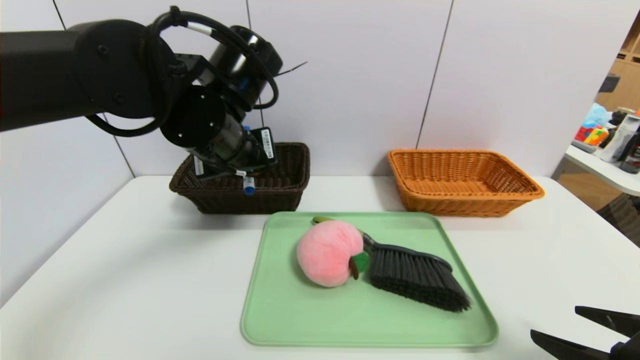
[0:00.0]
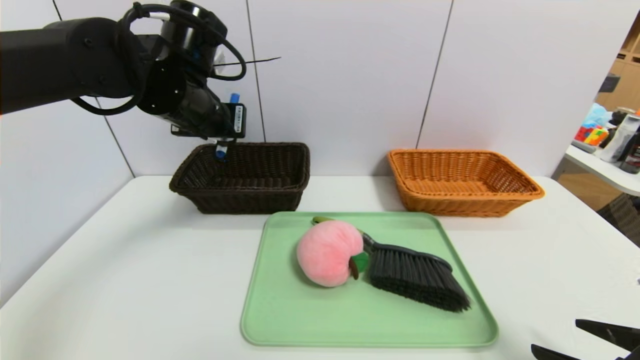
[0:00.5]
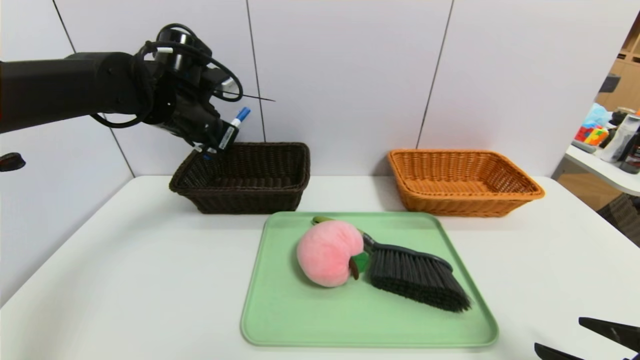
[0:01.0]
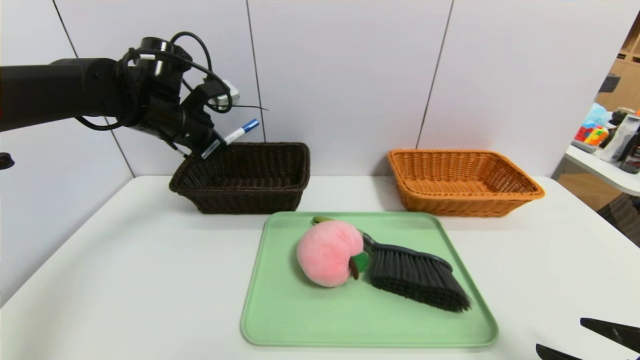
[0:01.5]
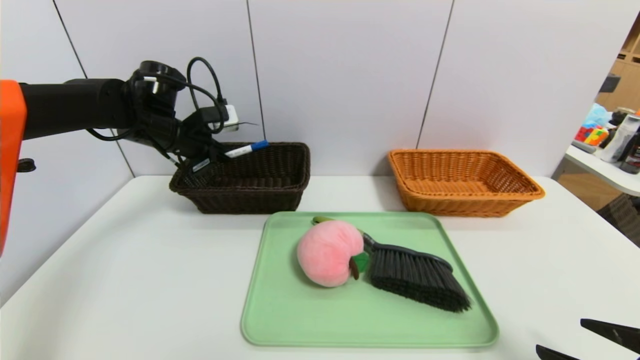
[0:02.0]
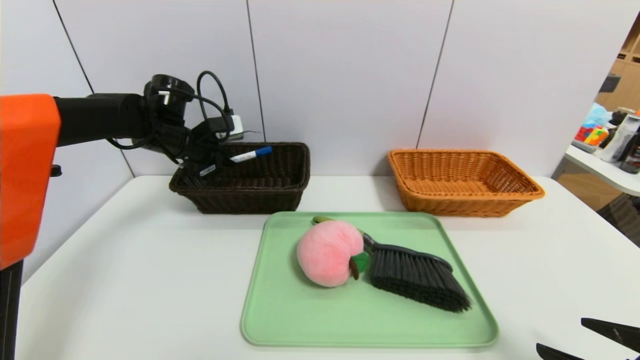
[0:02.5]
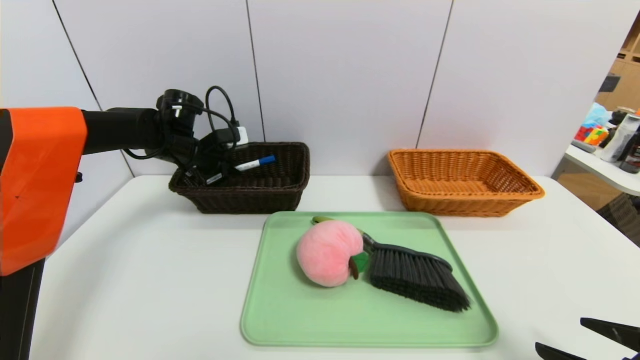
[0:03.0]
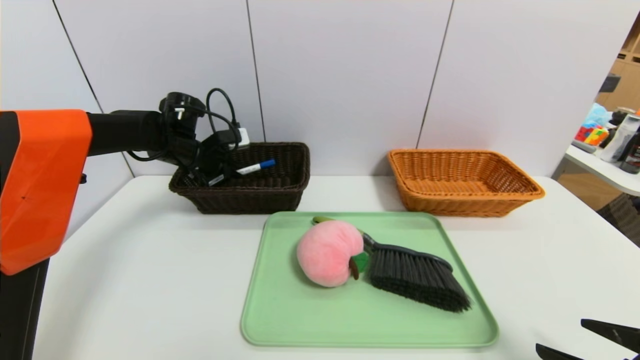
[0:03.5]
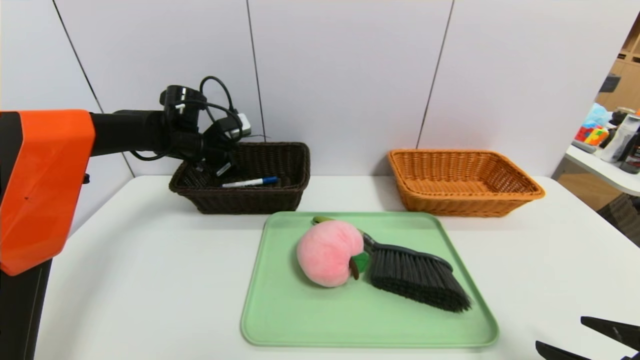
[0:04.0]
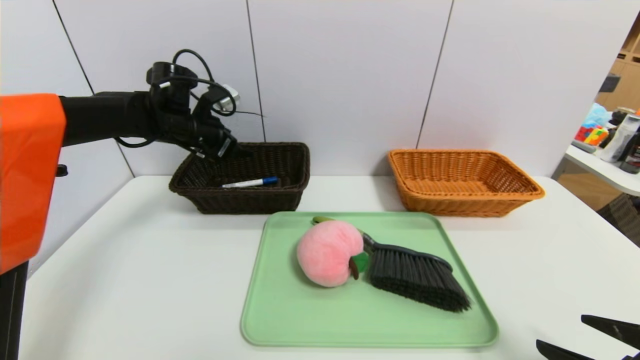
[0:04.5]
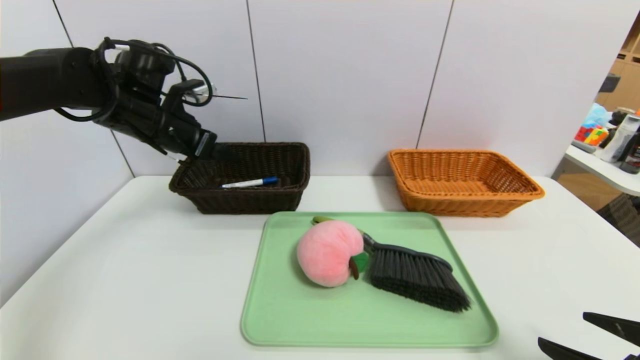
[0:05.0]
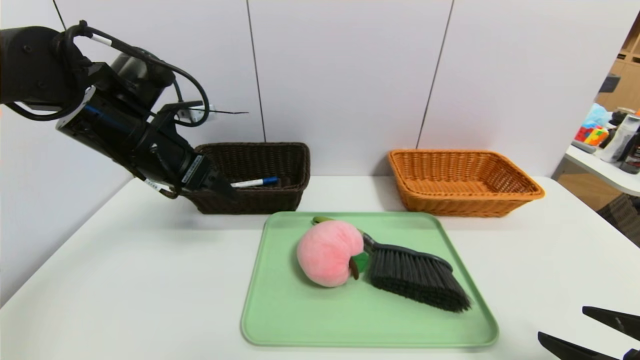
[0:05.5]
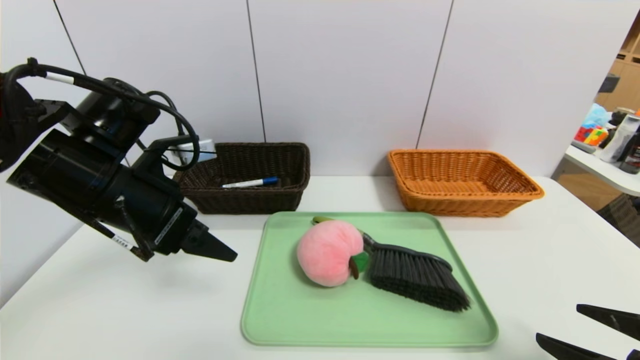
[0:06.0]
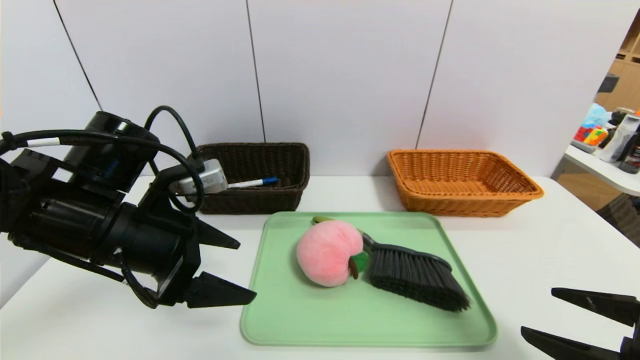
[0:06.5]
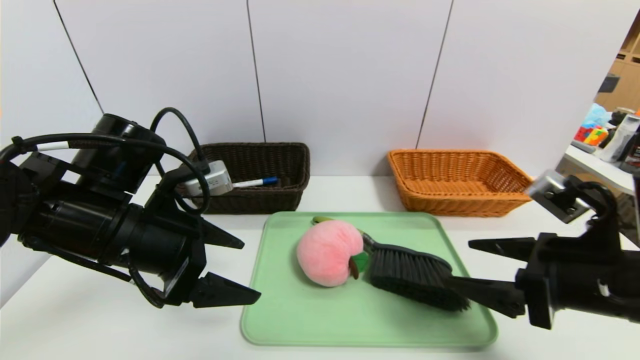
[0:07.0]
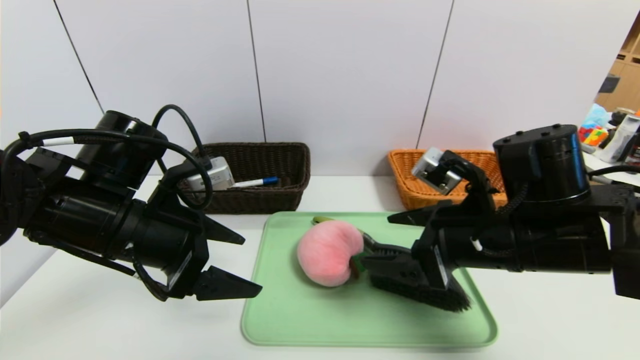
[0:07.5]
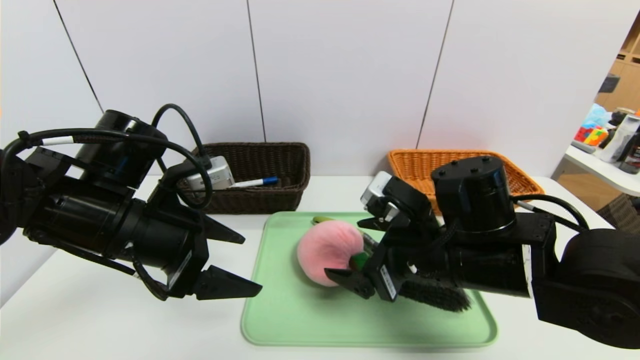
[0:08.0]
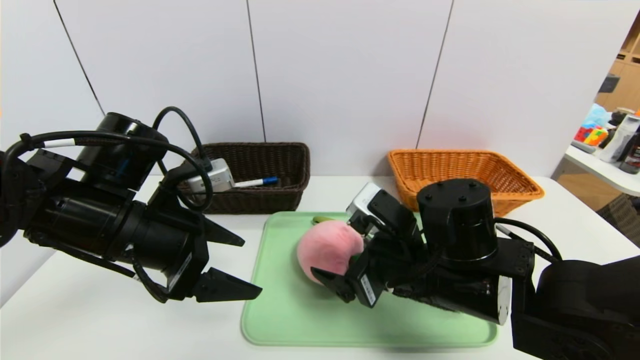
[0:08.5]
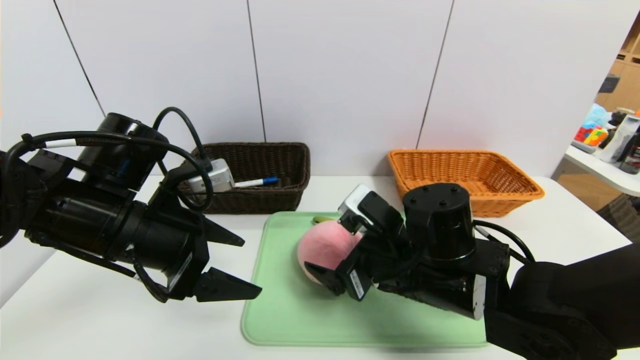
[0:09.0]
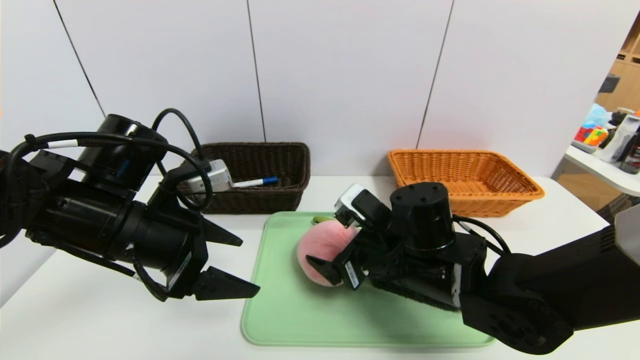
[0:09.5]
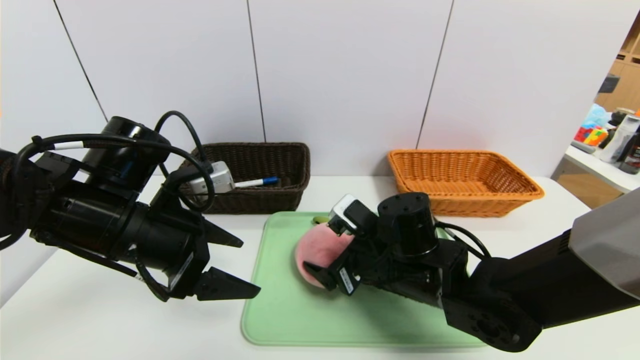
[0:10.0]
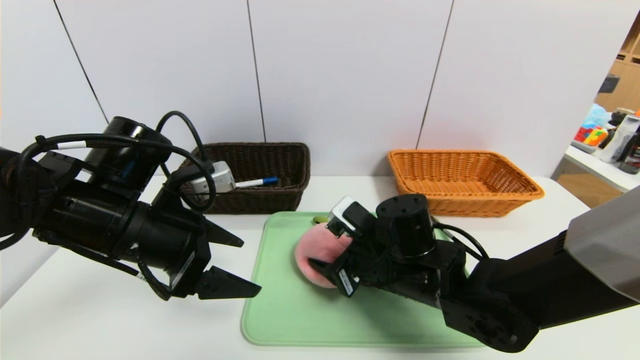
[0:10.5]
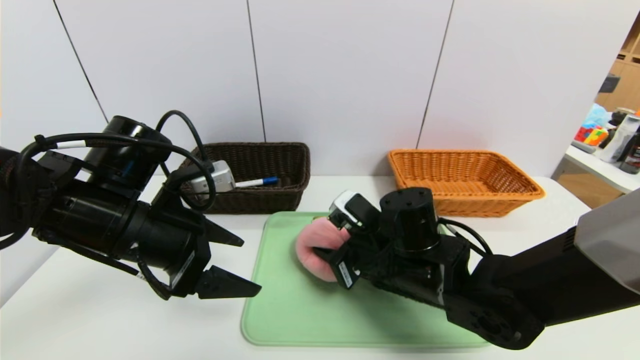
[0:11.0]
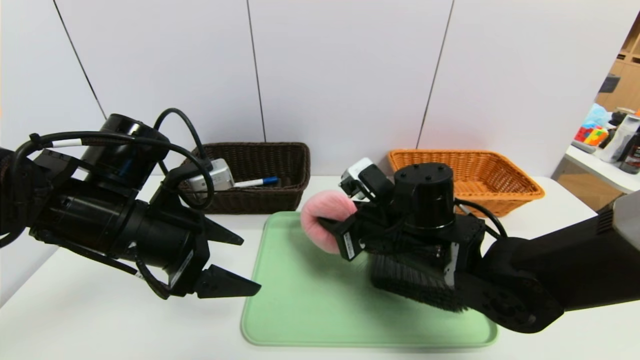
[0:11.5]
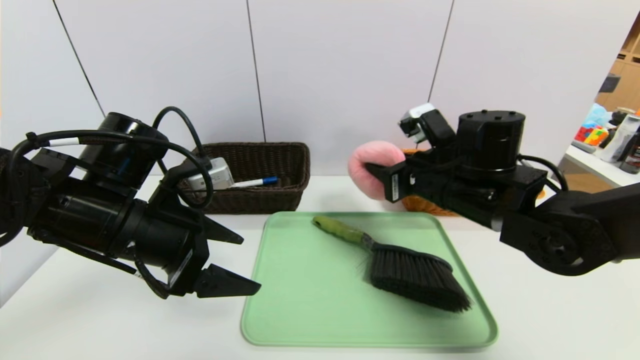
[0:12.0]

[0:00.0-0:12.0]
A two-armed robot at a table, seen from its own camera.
Task of the whole recording: place the food in the right basket with the right gripper, and place the non food items in the left basket with the left gripper.
Step, 0:00.0 to 0:03.5: Grasp the blue marker pen and put it in the left basket.
0:00.0 to 0:02.0: The left gripper is displaced to the left and forward by about 20 cm.
0:02.0 to 0:04.0: The left gripper shifts by some 5 cm, and opens its fingers.
0:04.0 to 0:06.0: The left gripper moves backward, roughly 20 cm.
0:06.0 to 0:08.0: The right gripper heads to the left and forward, covering approximately 25 cm.
0:08.0 to 0:10.0: The right gripper shifts about 5 cm downward.
0:10.0 to 0:12.0: The right gripper moves upward and to the right, some 10 cm, and closes up.

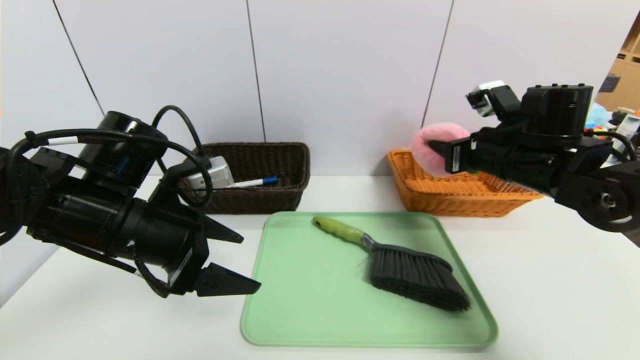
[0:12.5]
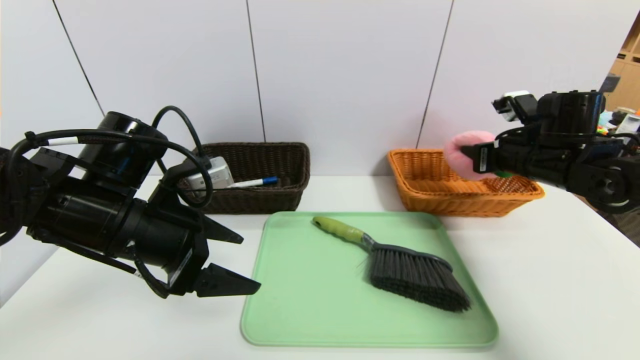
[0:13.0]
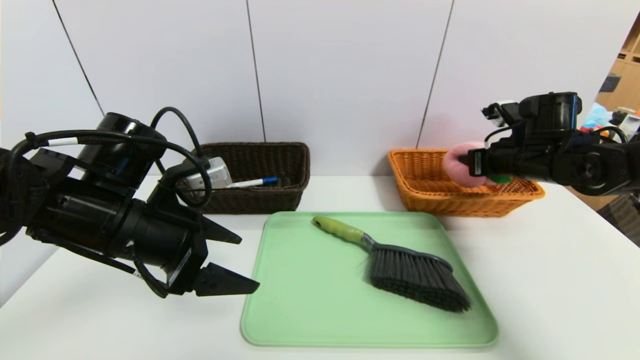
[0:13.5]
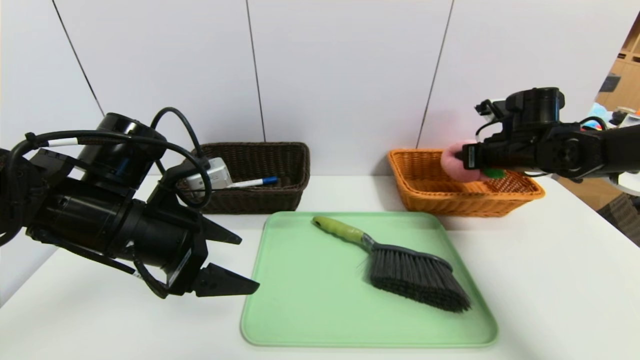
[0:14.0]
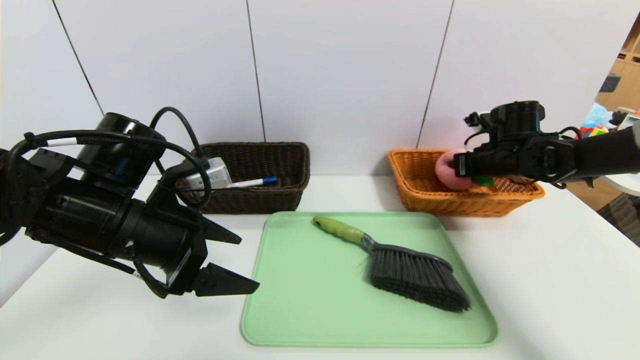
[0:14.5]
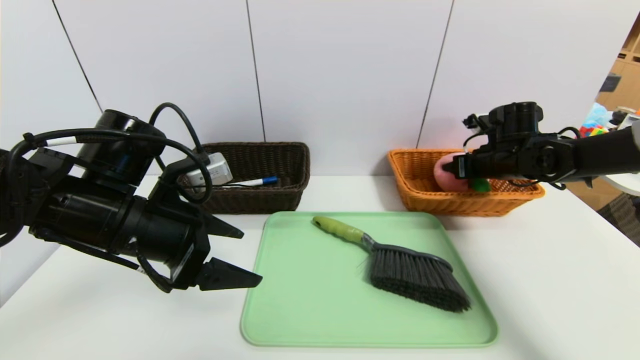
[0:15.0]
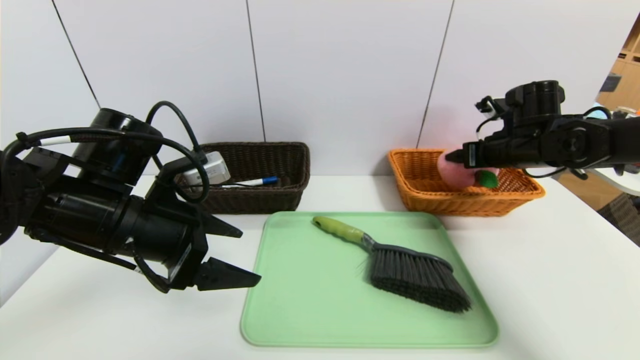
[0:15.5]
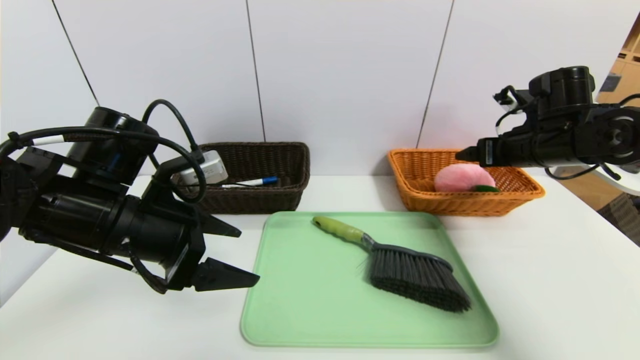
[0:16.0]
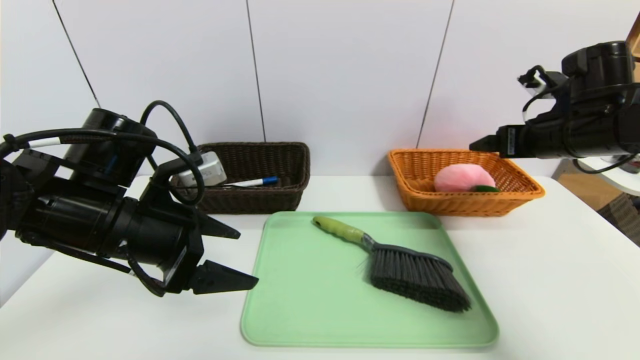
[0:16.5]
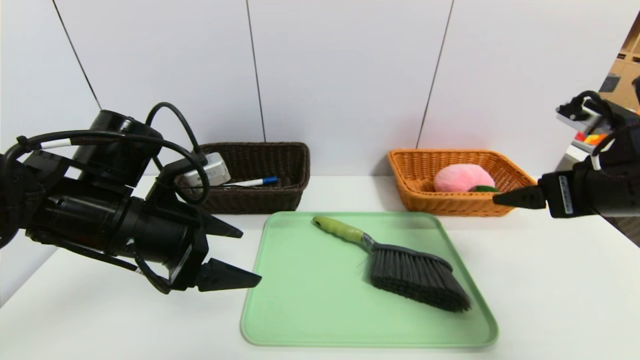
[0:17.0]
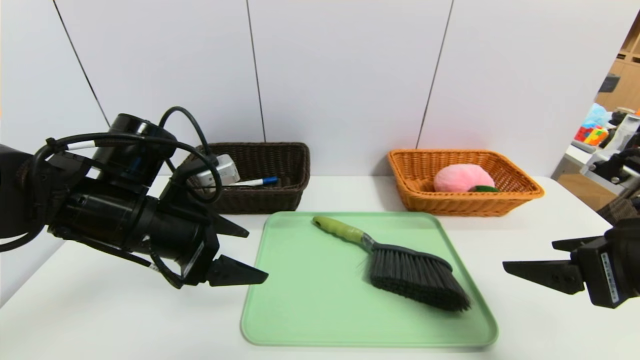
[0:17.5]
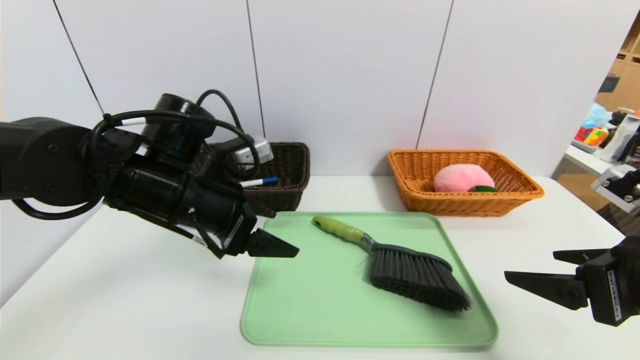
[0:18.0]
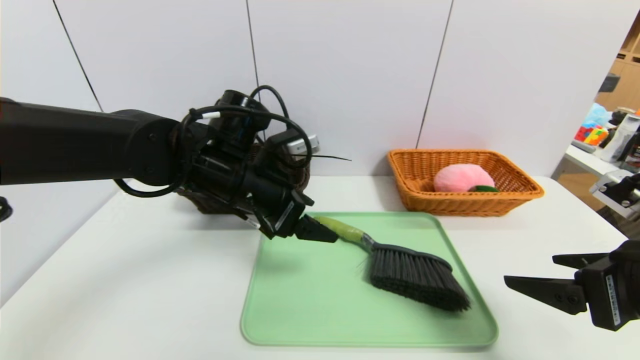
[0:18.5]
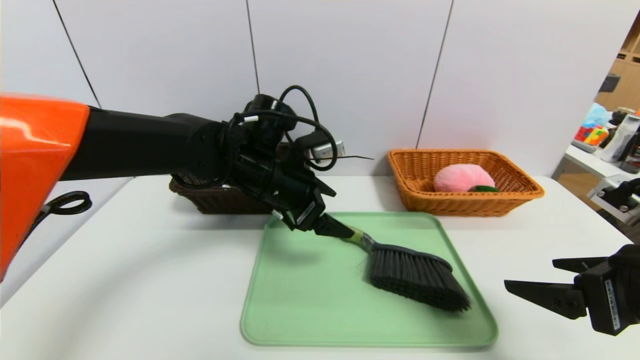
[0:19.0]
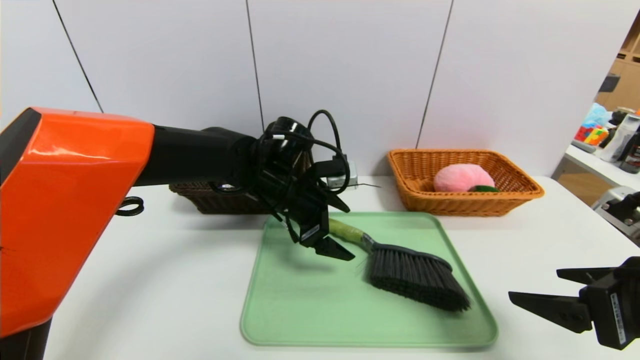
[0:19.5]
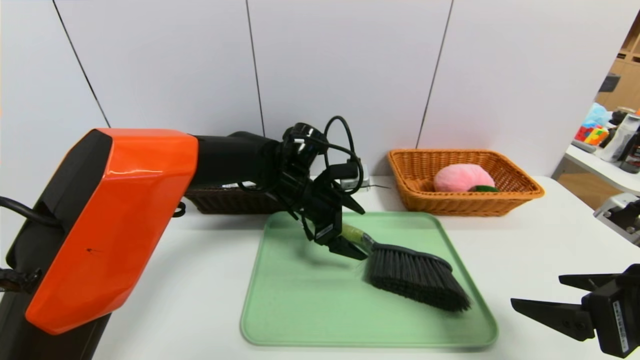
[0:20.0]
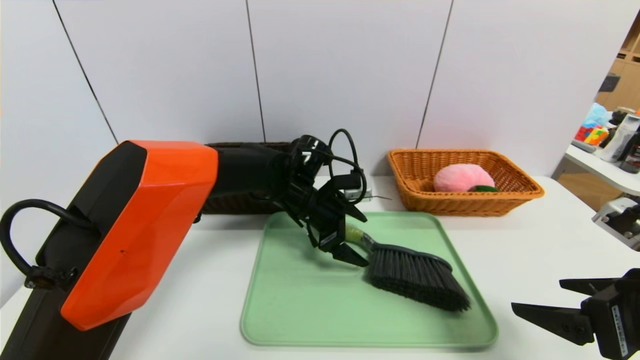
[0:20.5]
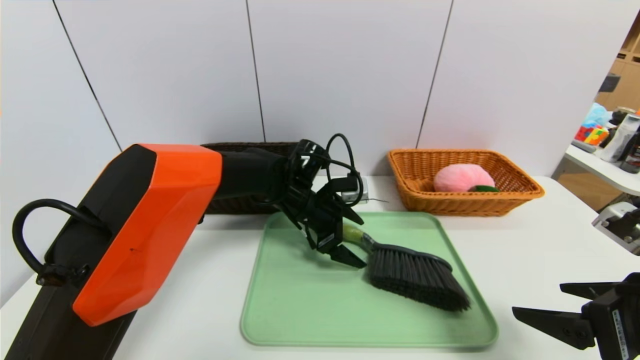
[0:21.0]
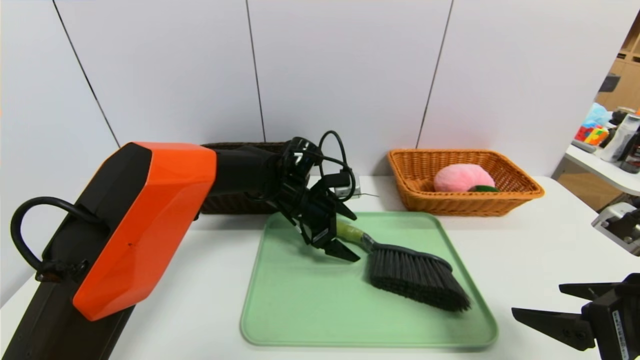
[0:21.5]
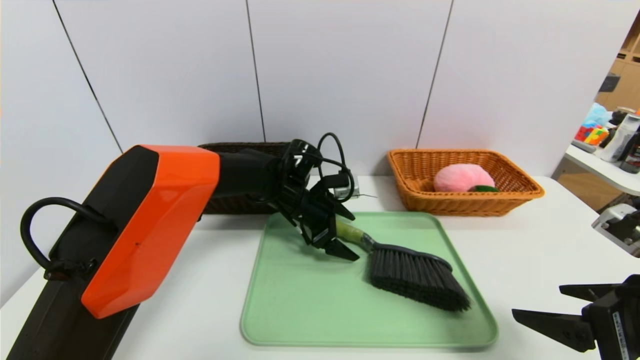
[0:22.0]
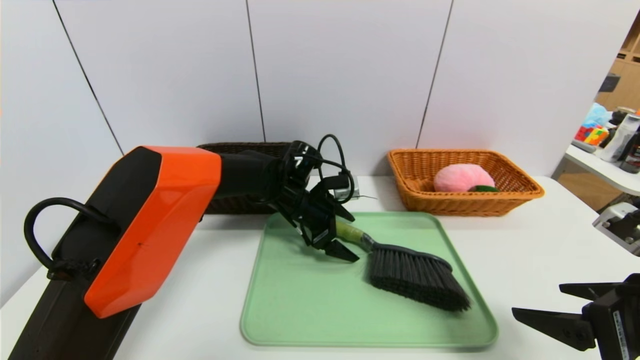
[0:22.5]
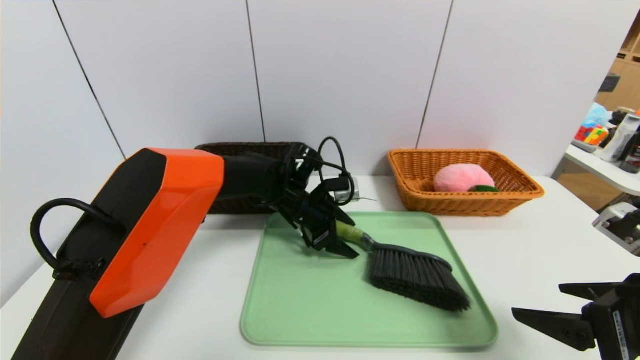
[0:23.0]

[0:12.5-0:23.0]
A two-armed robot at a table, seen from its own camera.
Task of the whole recording: place the food in the right basket with the right gripper, and place the non food items in the left basket with the left gripper.
Step, 0:12.5 to 0:15.0: Grasp the peach doll and put it in the right basket.
0:12.5 to 0:14.5: The right gripper heads forward, to the right and downward, covering about 15 cm.
0:14.5 to 0:16.5: The right gripper shifts some 15 cm backward and upward, and opens.
0:16.5 to 0:19.0: The right gripper moves backward, approximately 20 cm. Meanwhile the left gripper travels to the right and forward by some 15 cm.
0:19.0 to 0:21.0: The left gripper shifts roughly 10 cm downward and forward.
0:21.0 to 0:23.0: There are only small adjustments of the grippers.
